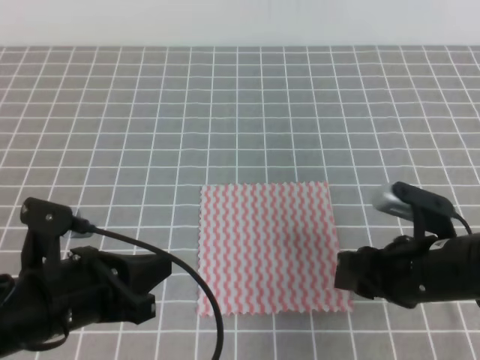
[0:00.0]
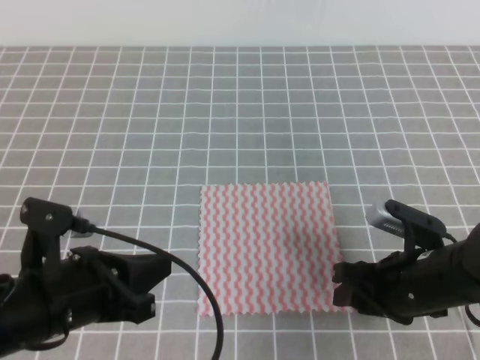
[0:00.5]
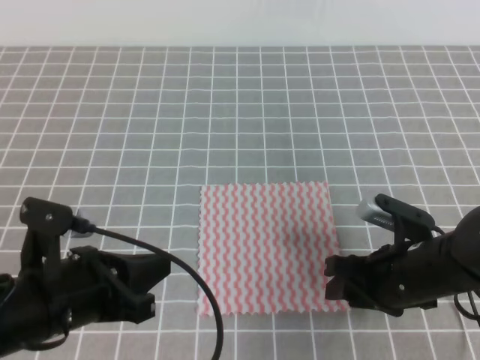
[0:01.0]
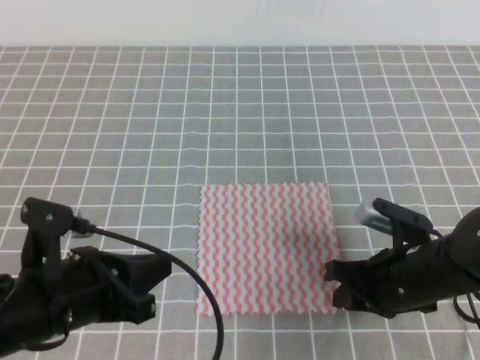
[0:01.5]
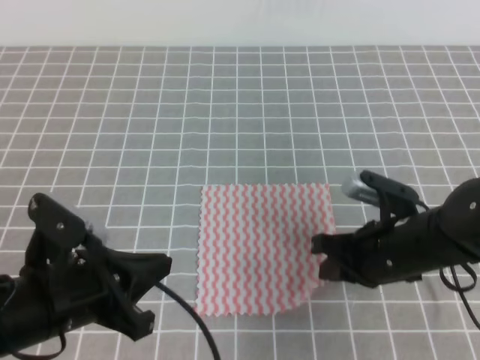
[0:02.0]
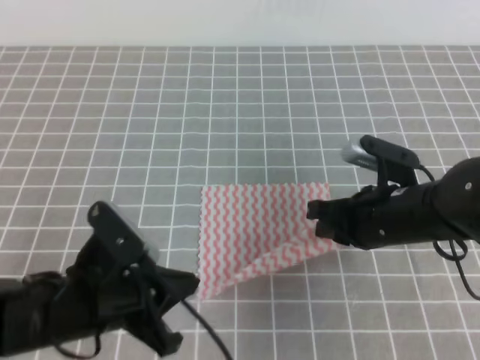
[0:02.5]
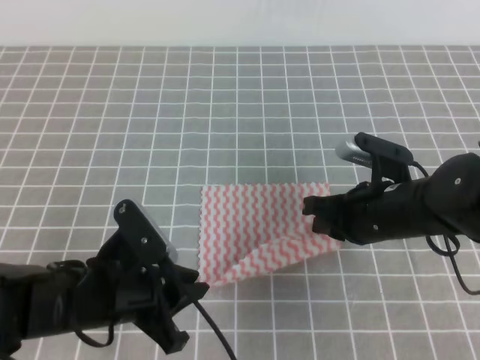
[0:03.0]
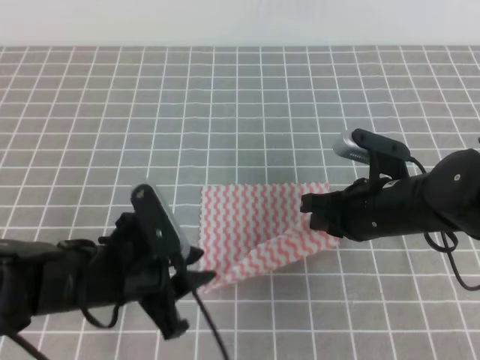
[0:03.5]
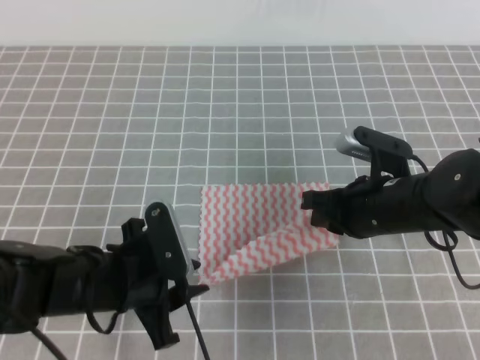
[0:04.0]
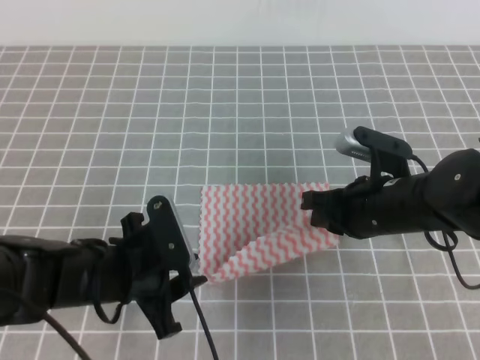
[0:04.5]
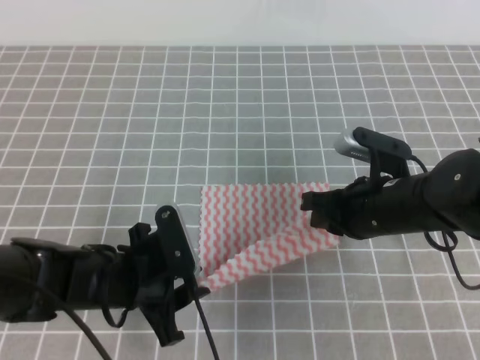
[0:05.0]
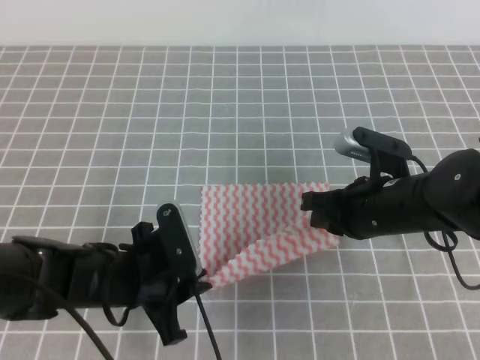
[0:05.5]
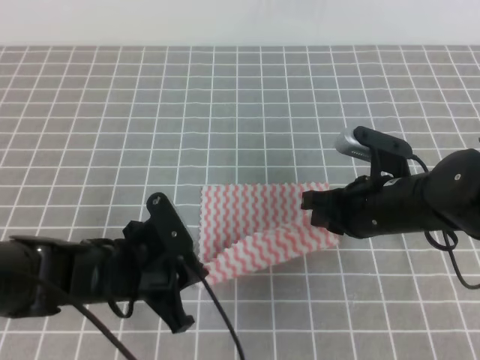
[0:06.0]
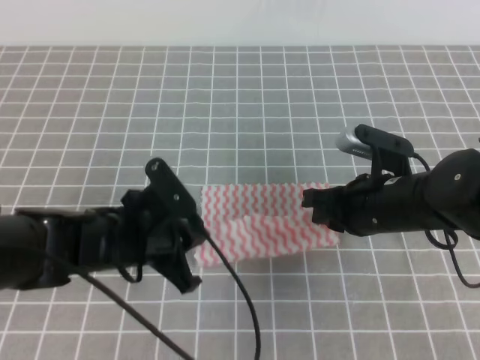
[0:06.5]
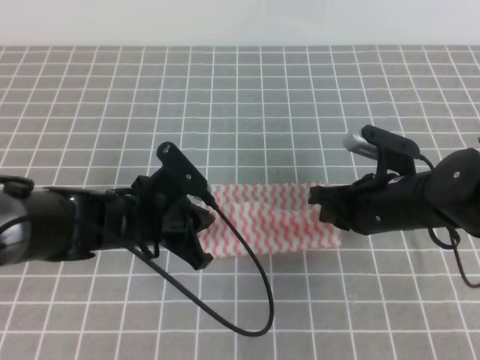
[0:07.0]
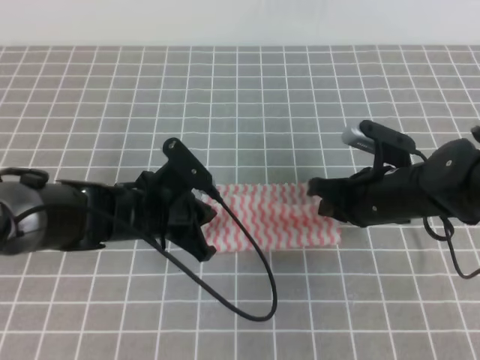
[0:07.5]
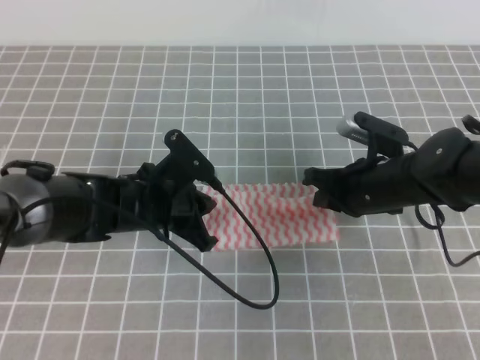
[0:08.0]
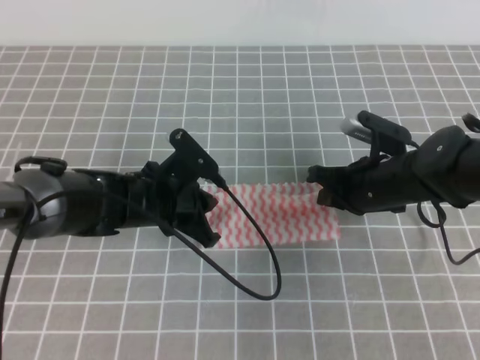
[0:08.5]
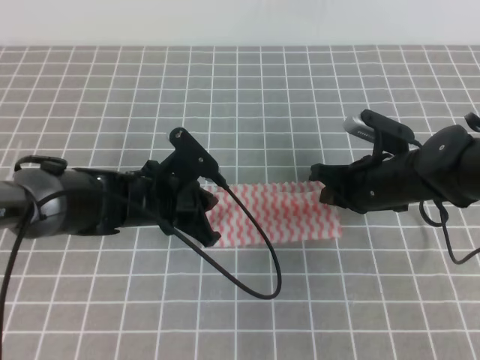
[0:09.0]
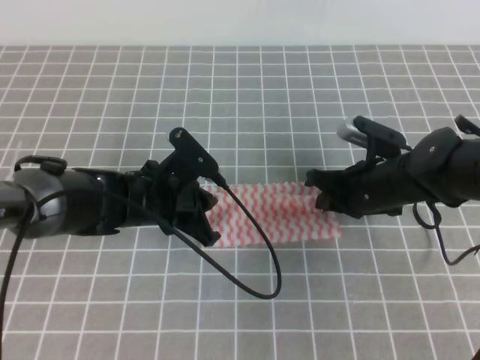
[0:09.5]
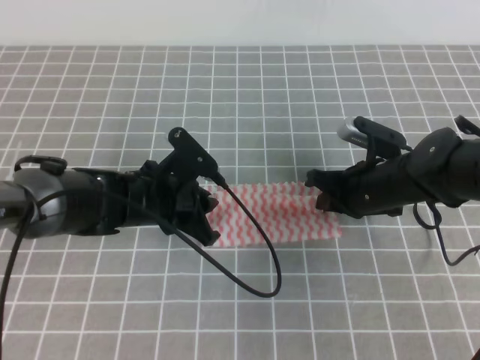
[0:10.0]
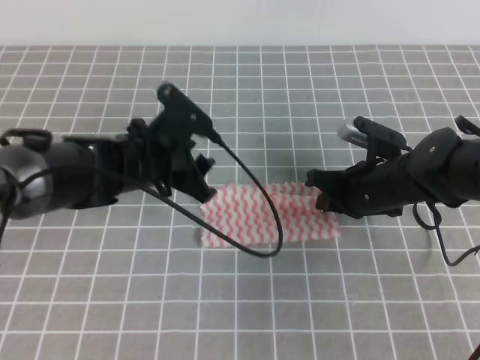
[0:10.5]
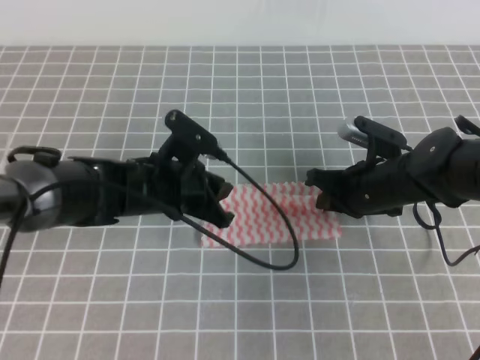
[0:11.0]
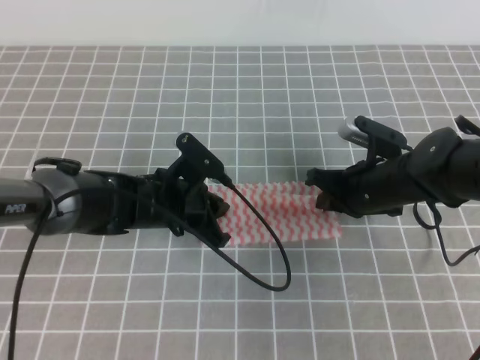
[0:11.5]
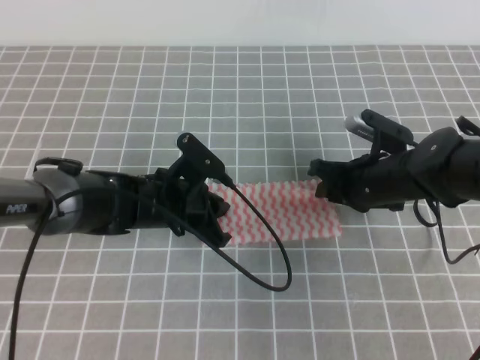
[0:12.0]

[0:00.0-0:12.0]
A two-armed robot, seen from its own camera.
0:00.0 to 0:02.0: The right gripper closes up.
0:02.0 to 0:04.0: The left gripper ends up some 5 cm from where it was, and opens up.
0:04.0 to 0:06.0: The left gripper closes its fingers.
0:06.0 to 0:08.0: The left gripper heads forward, covering roughly 10 cm; the right gripper shifts by some 5 cm.
0:08.0 to 0:10.0: The left gripper opens up.
0:10.0 to 0:12.0: The left gripper opens, then closes once more, while the right gripper opens its fingers.

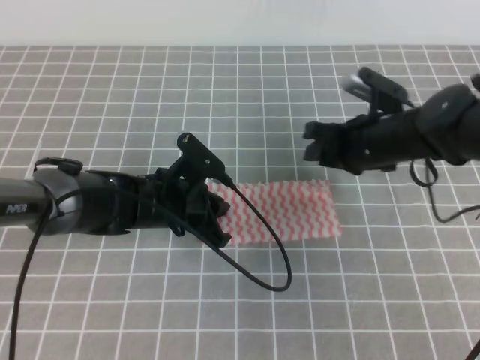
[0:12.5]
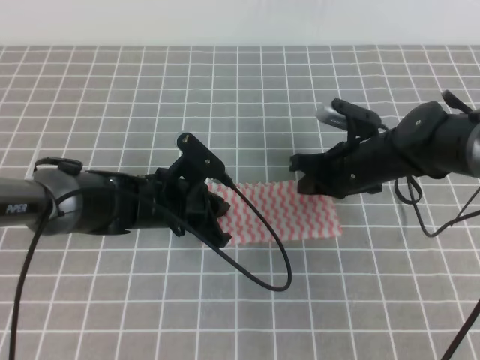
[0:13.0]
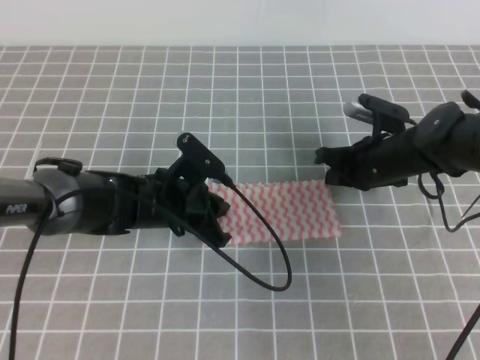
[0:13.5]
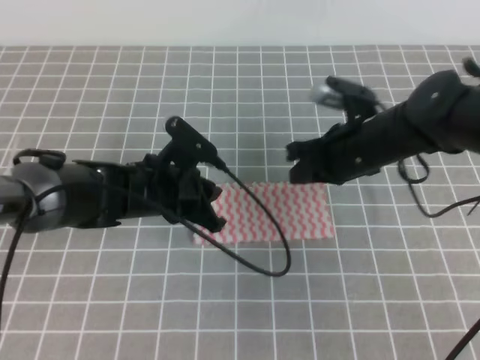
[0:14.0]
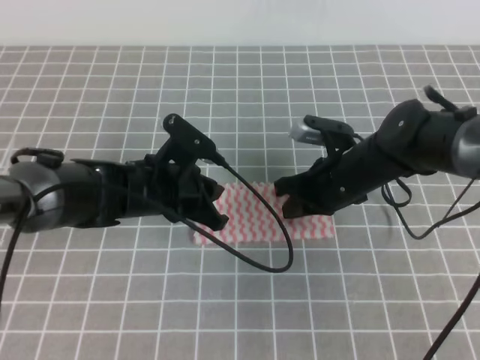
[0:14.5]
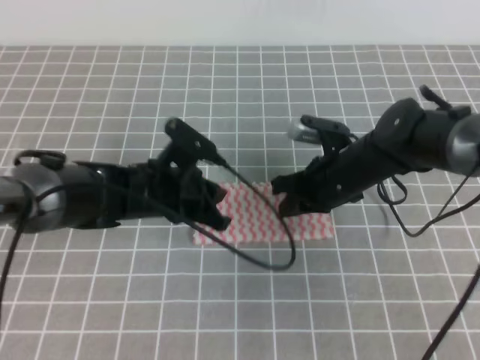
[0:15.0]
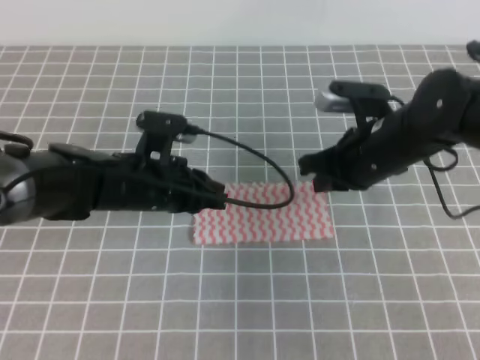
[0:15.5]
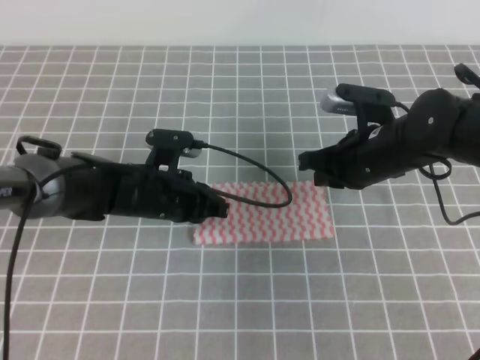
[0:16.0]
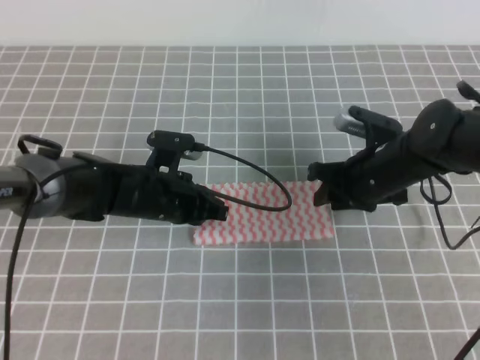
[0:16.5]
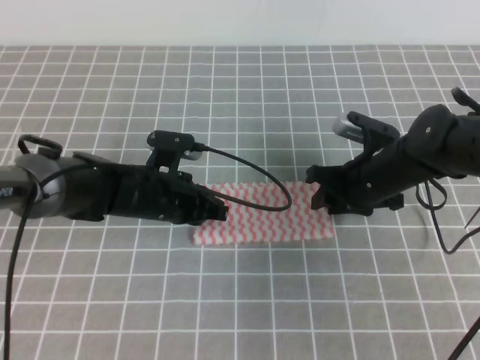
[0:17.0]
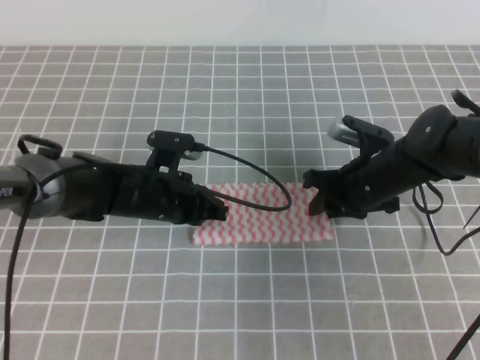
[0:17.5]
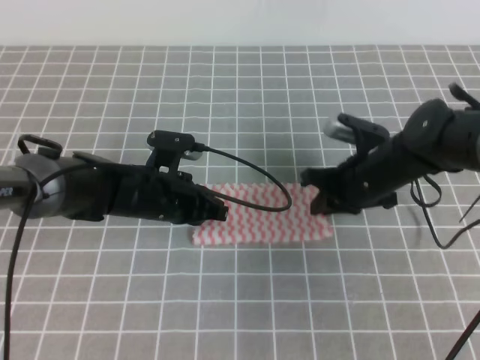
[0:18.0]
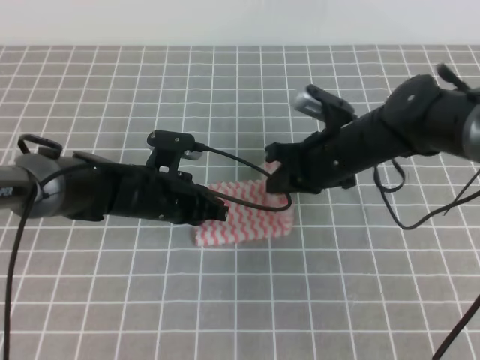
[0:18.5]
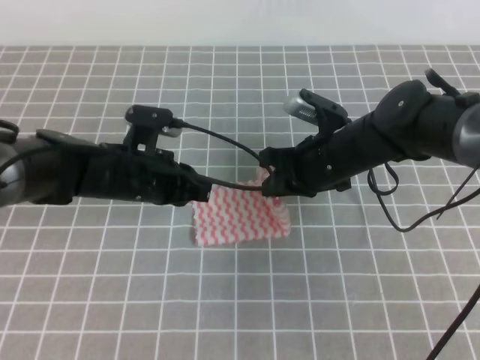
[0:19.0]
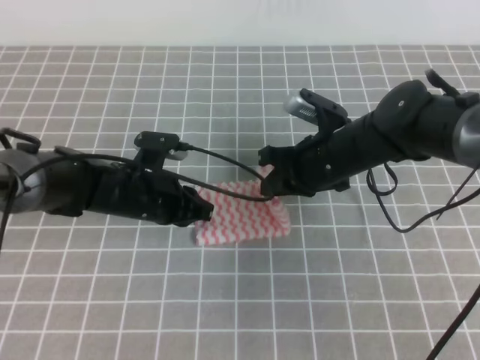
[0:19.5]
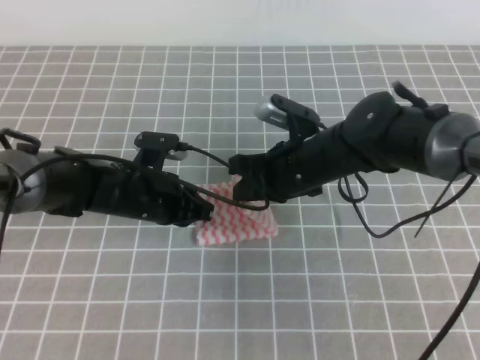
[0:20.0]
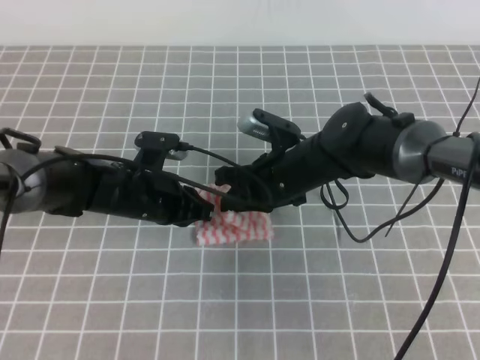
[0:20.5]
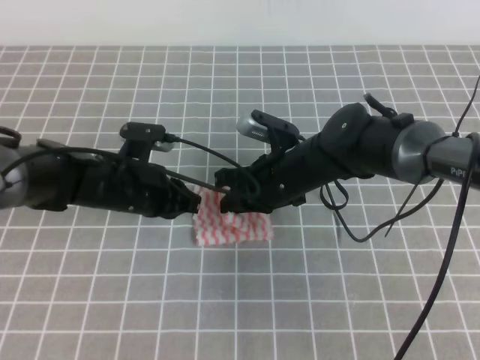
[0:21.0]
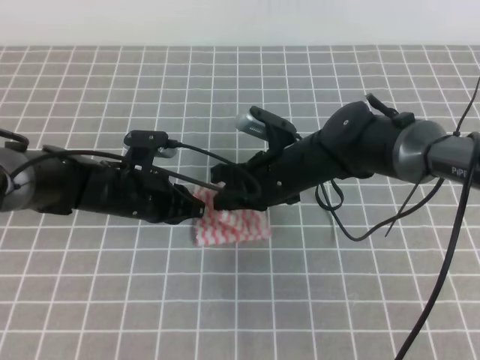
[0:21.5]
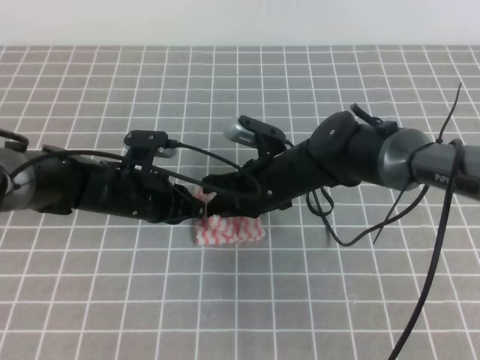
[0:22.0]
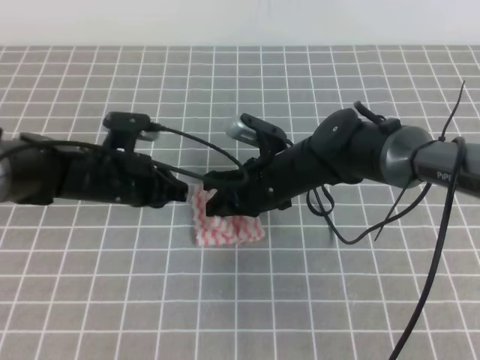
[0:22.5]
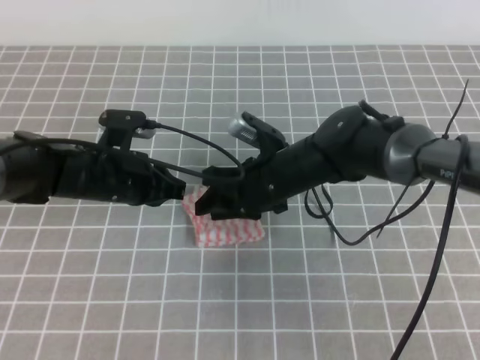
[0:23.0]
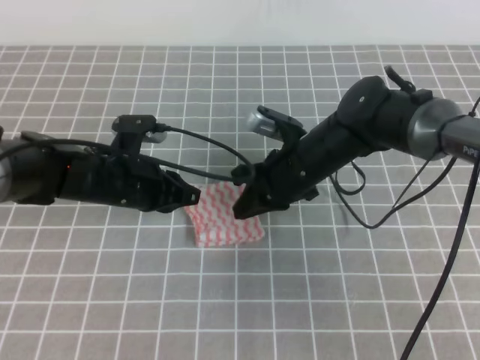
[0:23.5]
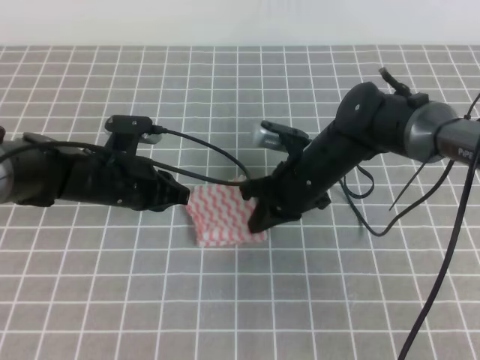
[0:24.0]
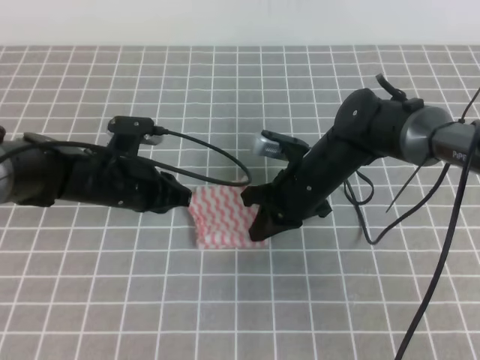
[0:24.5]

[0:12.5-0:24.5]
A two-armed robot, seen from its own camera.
0:12.5 to 0:14.5: The right gripper closes.
0:14.5 to 0:16.5: The right gripper opens up.
0:16.5 to 0:18.5: The right gripper changes place by about 5 cm, and closes up.
0:18.5 to 0:20.5: The right gripper shifts about 5 cm to the left.
0:20.5 to 0:22.5: The grippers make only small movements.
0:22.5 to 0:24.5: The right gripper opens, then closes once more.

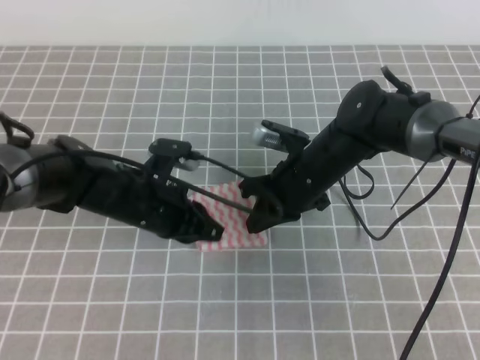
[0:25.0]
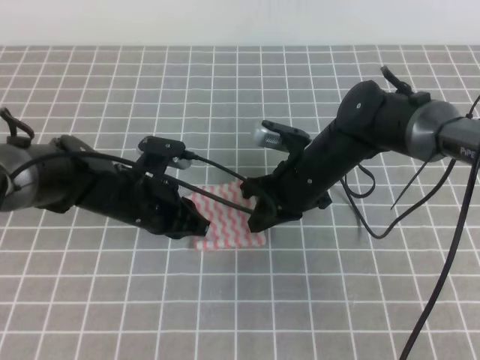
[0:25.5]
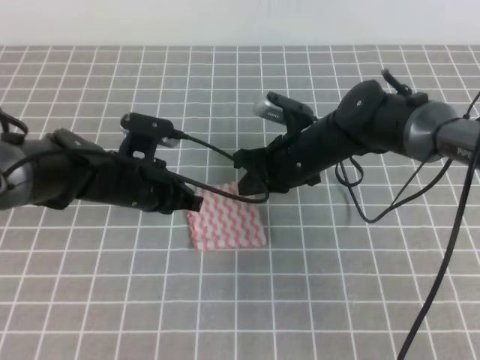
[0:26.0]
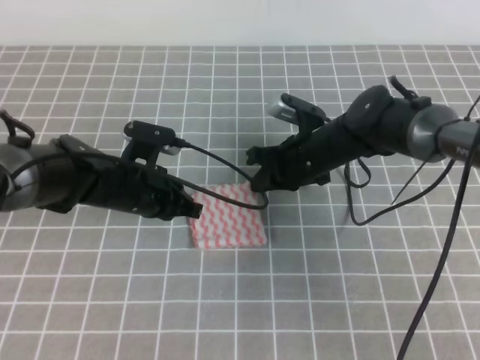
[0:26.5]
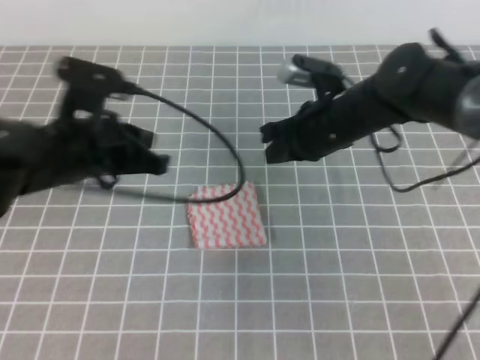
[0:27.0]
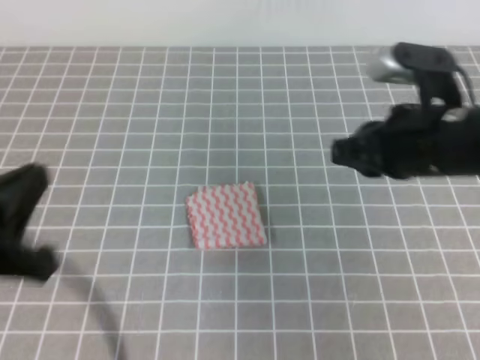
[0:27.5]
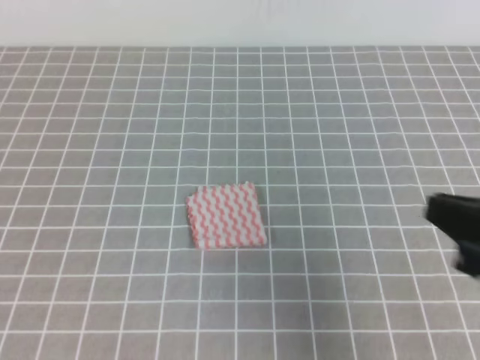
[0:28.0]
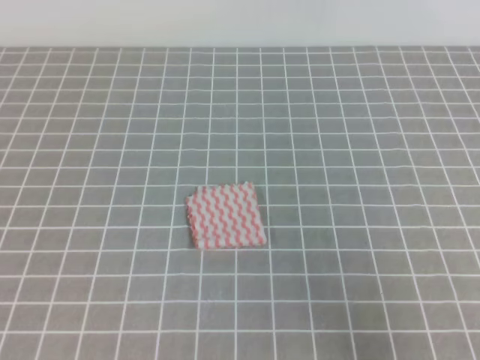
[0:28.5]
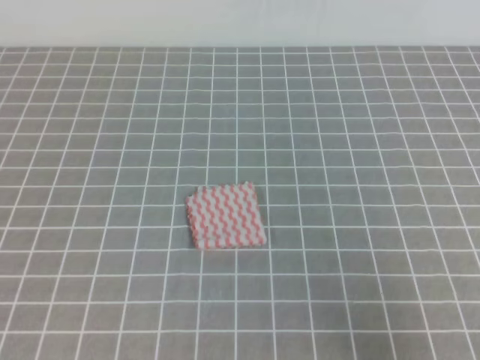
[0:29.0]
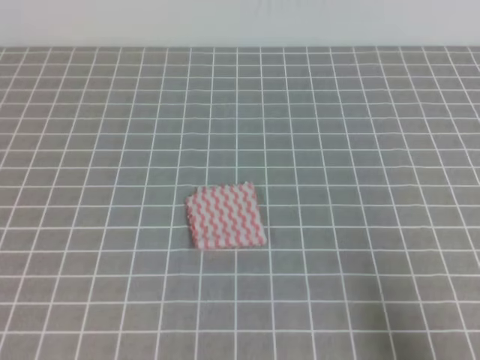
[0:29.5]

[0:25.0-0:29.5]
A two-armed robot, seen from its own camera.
0:25.0 to 0:27.0: The left gripper travels upward by approximately 10 cm, while the right gripper moves upward, about 5 cm.
0:27.0 to 0:29.5: The right gripper heads backward and to the right, covering some 40 cm, while the left gripper travels backward by approximately 25 cm.
